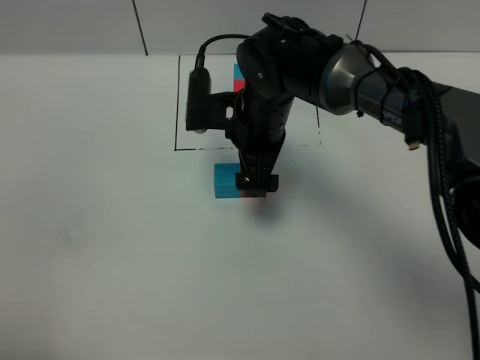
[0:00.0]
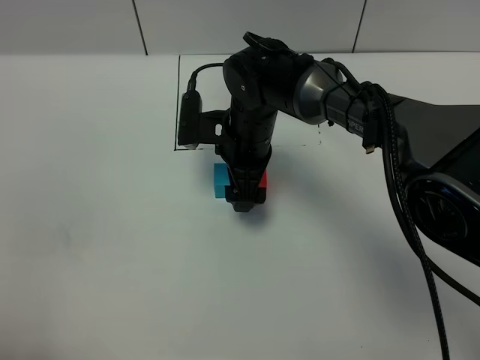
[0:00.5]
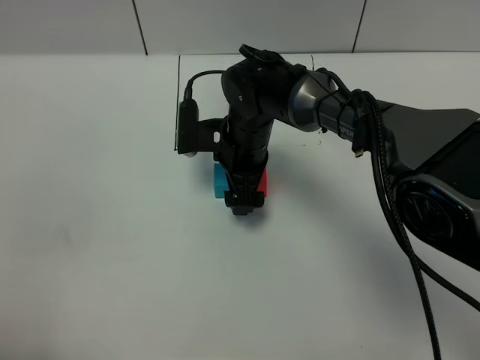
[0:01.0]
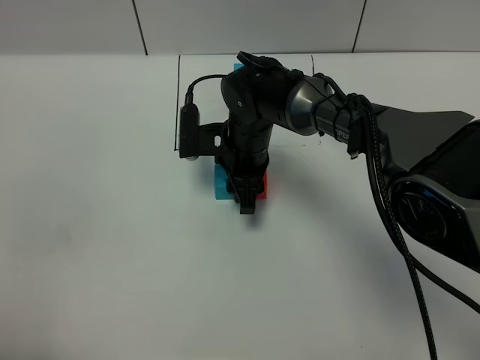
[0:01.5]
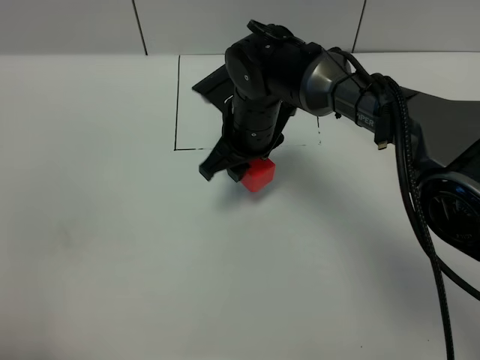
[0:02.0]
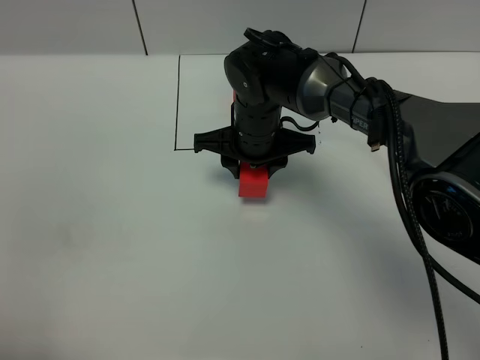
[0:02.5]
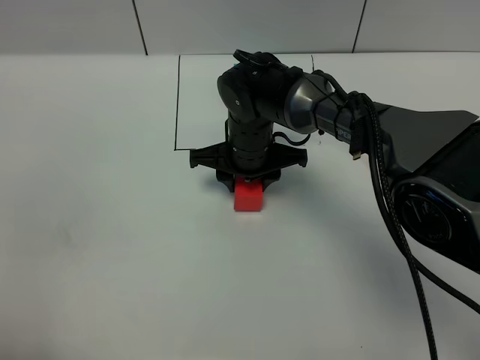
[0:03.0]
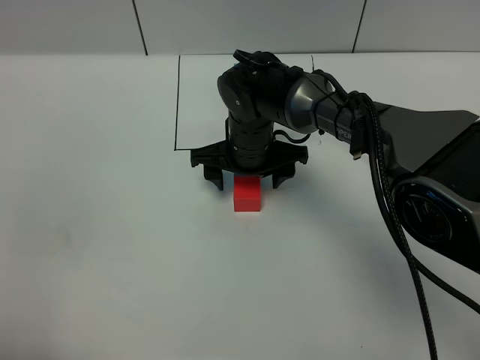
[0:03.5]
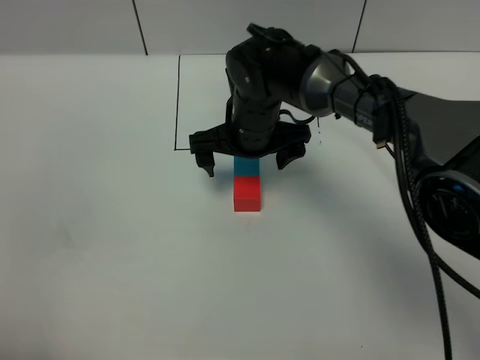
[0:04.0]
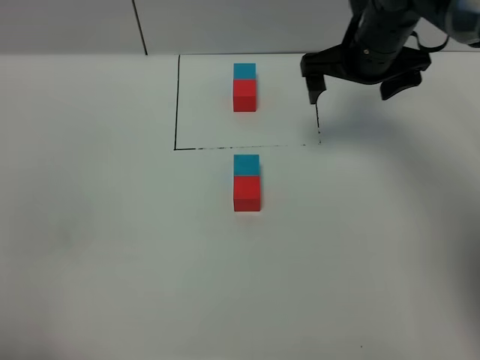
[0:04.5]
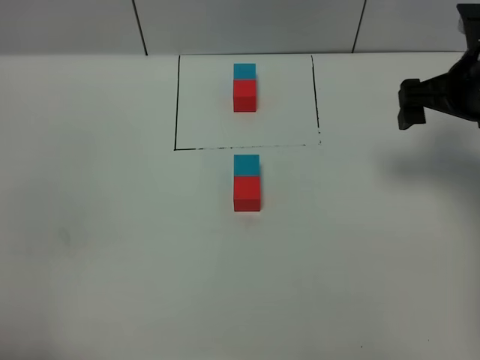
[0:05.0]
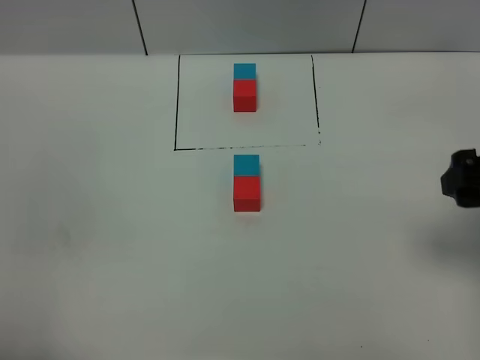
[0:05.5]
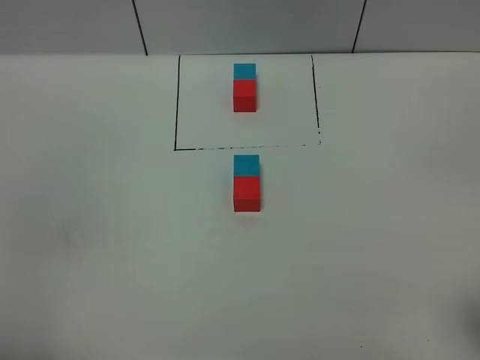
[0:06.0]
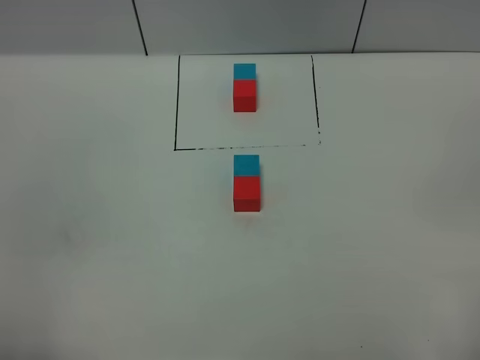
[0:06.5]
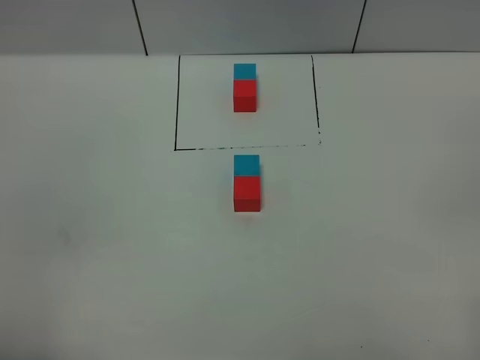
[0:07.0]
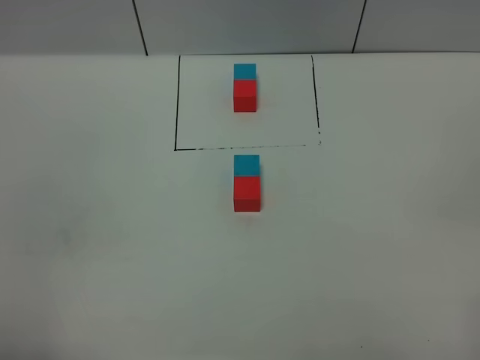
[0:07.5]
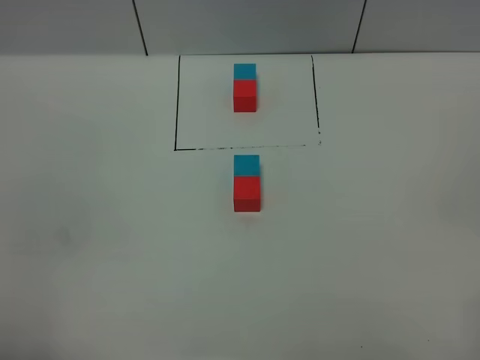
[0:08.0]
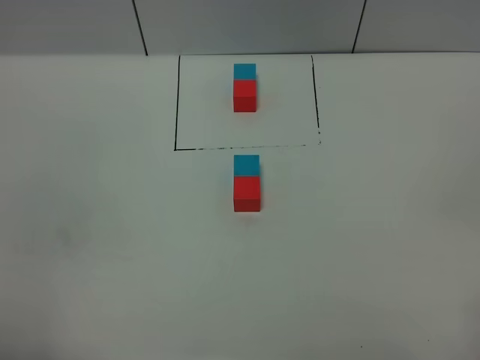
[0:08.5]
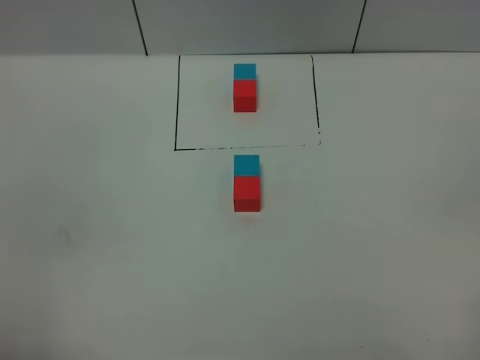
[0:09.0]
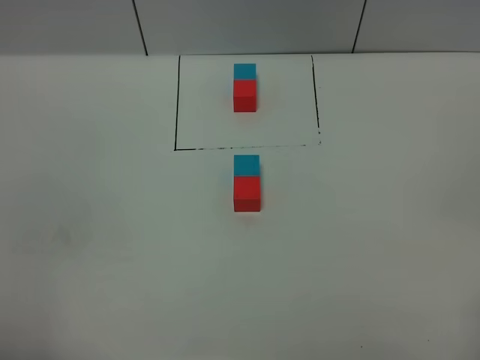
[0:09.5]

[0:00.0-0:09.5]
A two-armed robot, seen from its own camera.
Task of the whole recording: According to the building block template in front, assemble the scattered blocks together.
Step, 0:00.0 to 0:03.5: Adjust the pose of the building blocks.
0:00.0 to 0:02.0: The right gripper closes up.
0:02.0 to 0:04.0: The right gripper opens up.
0:04.0 to 0:05.5: The right gripper is displaced to the right, backward and upward by approximately 35 cm.
0:05.5 to 0:07.5: The right gripper shifts approximately 20 cm backward.
